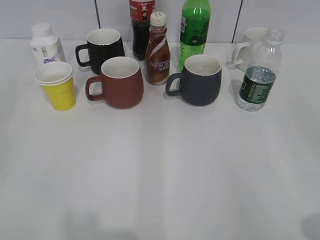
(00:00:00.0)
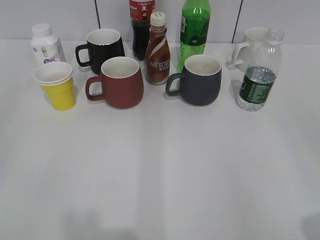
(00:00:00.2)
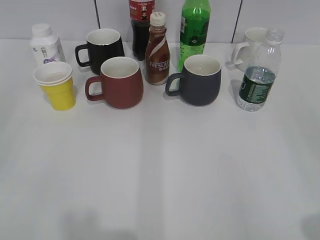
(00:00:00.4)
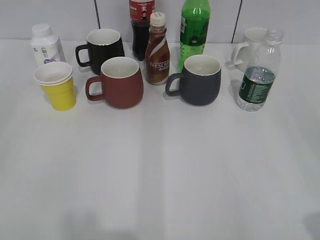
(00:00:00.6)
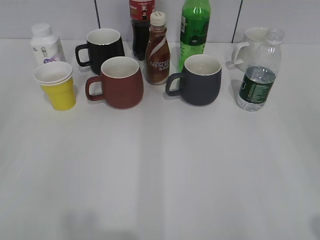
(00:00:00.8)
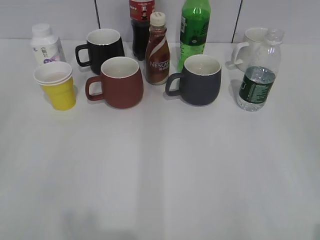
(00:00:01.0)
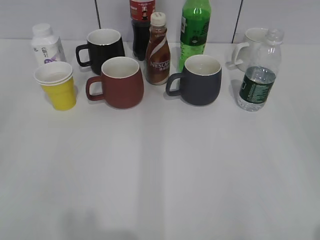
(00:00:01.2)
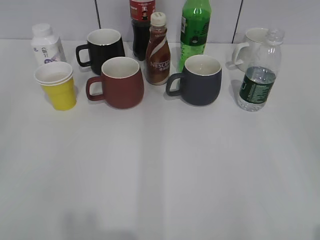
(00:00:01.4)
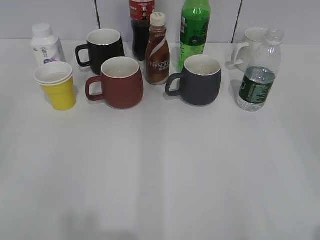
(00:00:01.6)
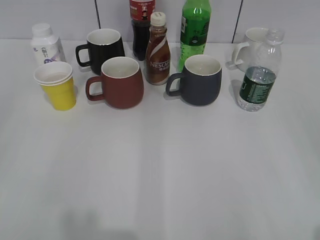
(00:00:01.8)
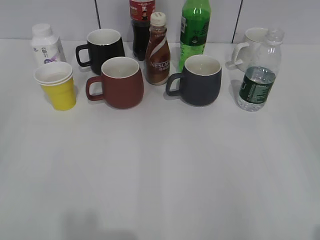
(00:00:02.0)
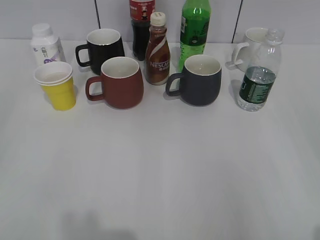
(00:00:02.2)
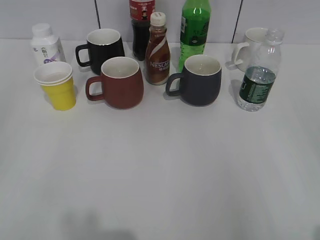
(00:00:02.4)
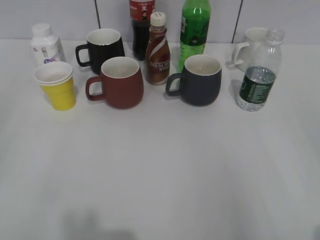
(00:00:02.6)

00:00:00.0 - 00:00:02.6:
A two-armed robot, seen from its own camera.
00:00:01.2 - 00:00:02.6: Both grippers stay about where they are.
